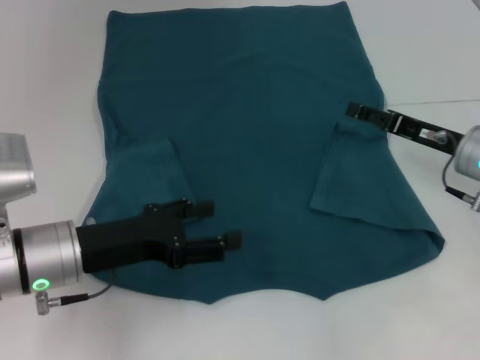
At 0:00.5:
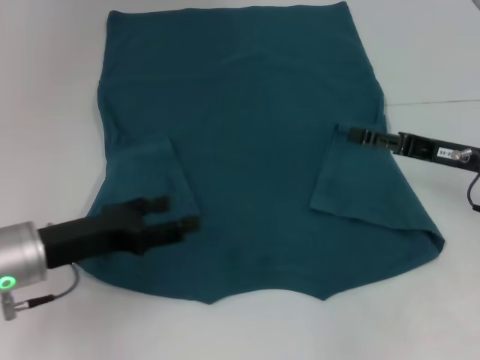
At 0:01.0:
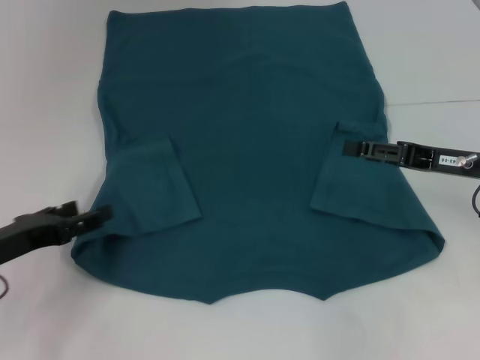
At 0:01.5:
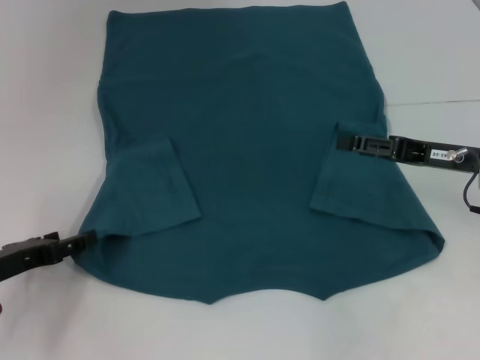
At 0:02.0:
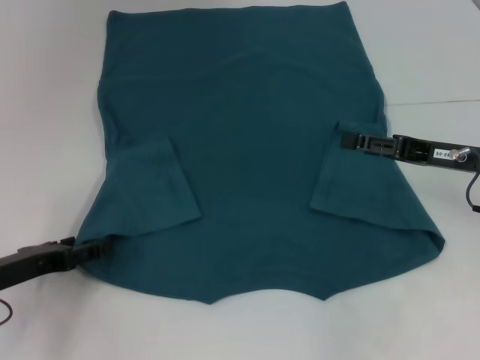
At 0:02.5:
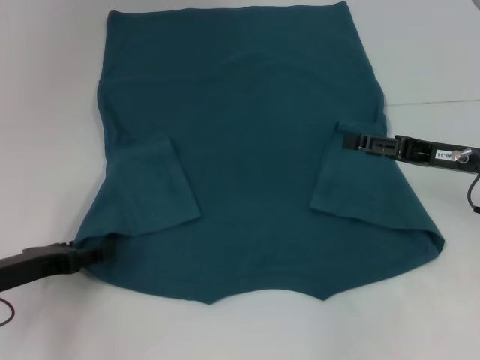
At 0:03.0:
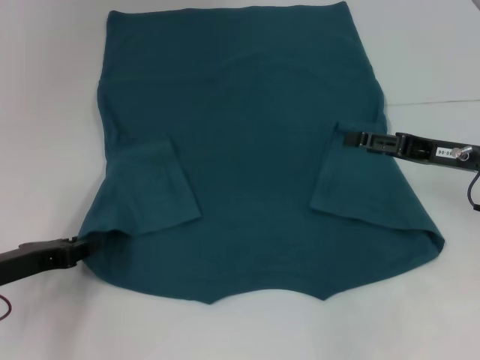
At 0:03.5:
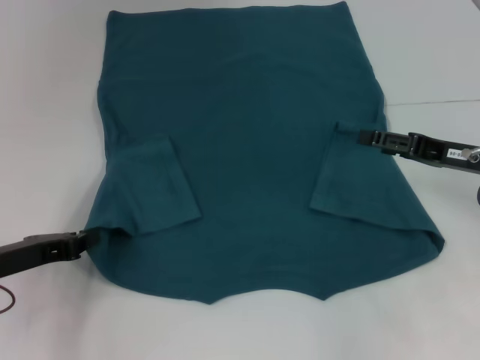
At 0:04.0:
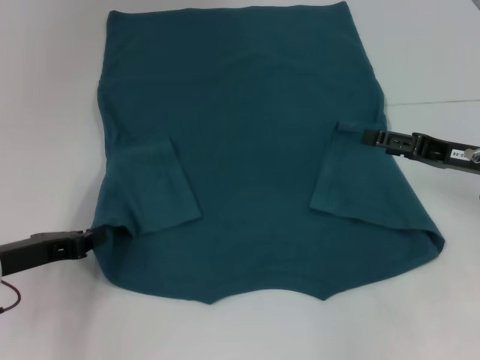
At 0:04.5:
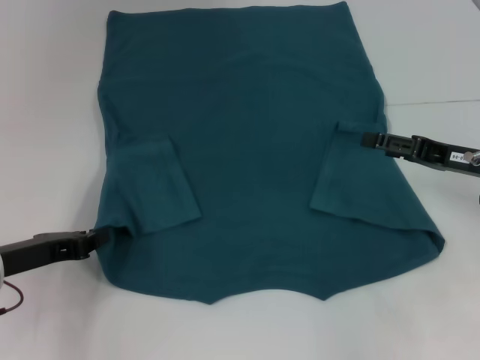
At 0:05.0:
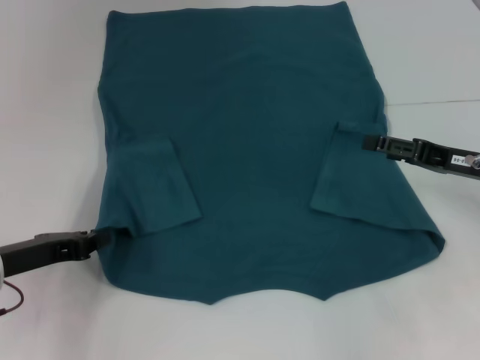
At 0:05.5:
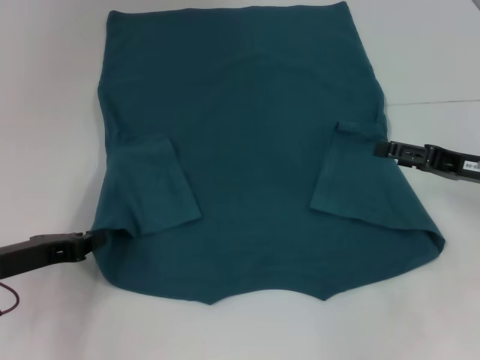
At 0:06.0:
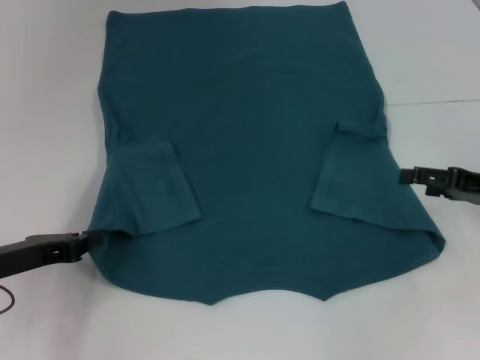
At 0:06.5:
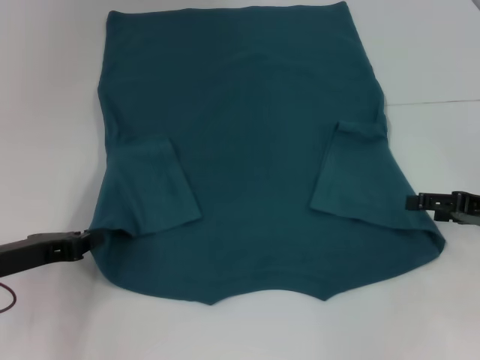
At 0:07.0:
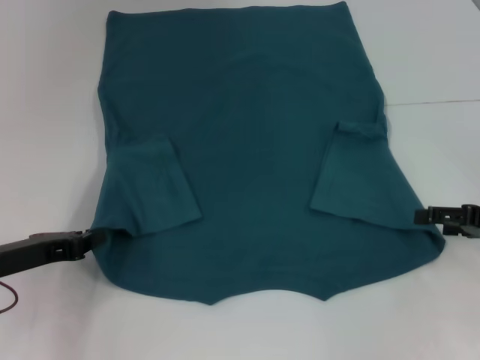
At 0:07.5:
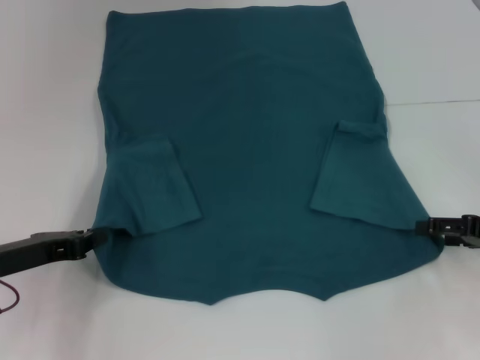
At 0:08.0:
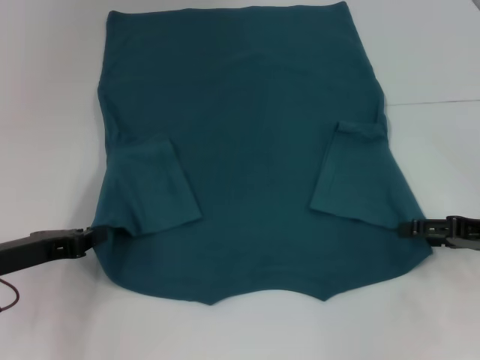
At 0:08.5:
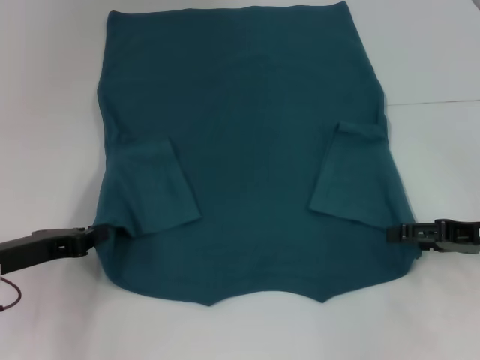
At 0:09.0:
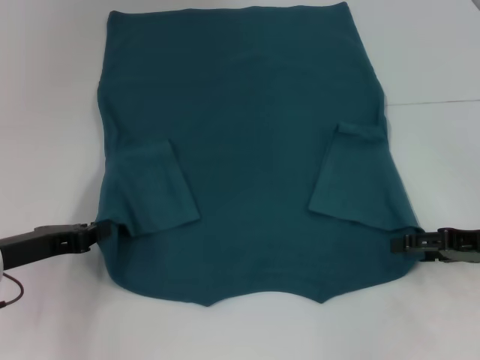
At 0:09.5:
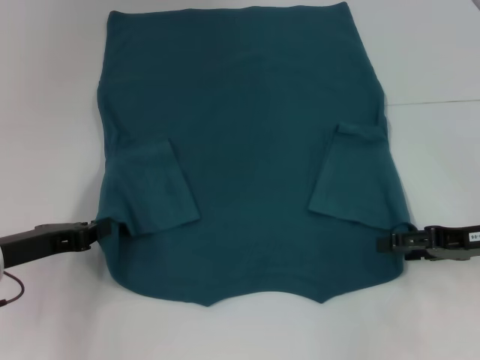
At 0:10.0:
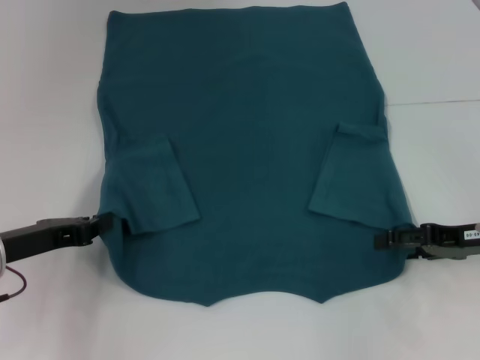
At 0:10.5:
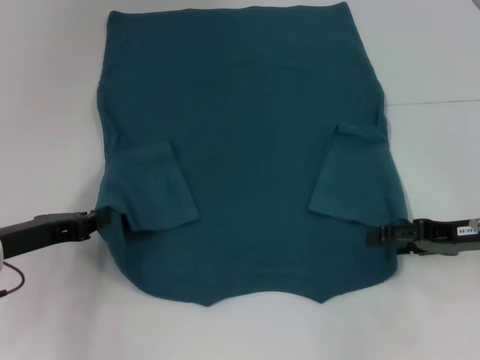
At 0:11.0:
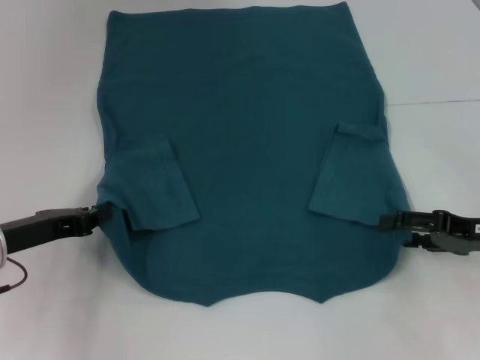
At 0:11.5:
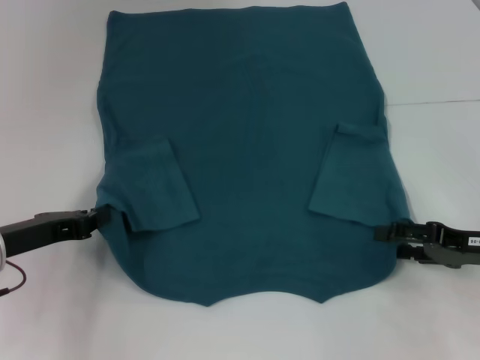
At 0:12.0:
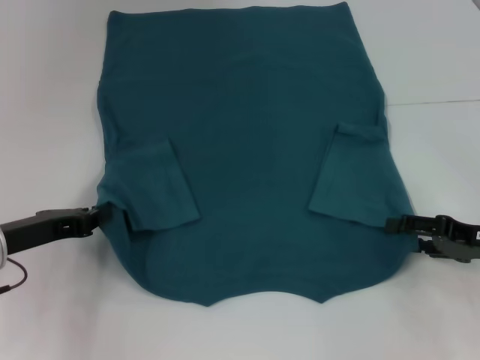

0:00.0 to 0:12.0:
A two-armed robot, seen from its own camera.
Step, 0:00.5 to 0:03.0: Grab the bottom left corner with your left hand.
0:00.0 to 0:02.0: The left gripper heads to the left and downward, covering about 10 cm.
0:02.0 to 0:04.0: The left gripper closes its fingers.
0:04.0 to 0:06.0: There are only small adjustments of the grippers.
0:06.0 to 0:12.0: There are only small adjustments of the grippers.

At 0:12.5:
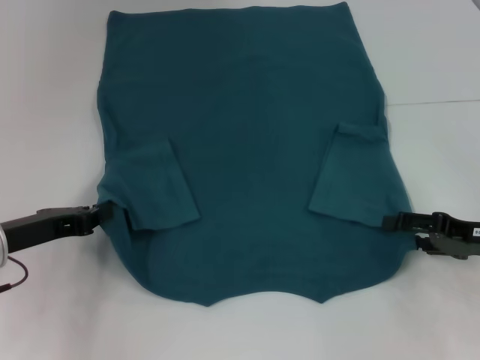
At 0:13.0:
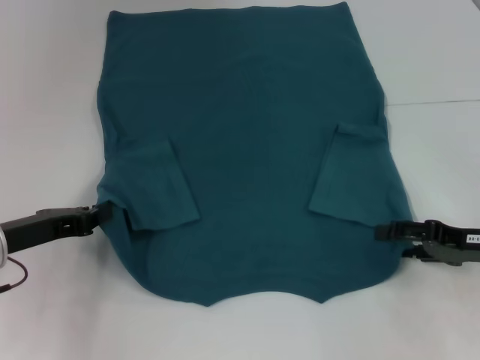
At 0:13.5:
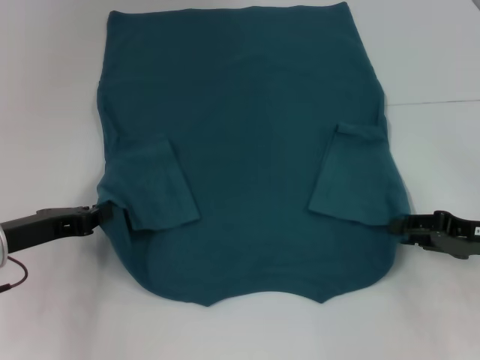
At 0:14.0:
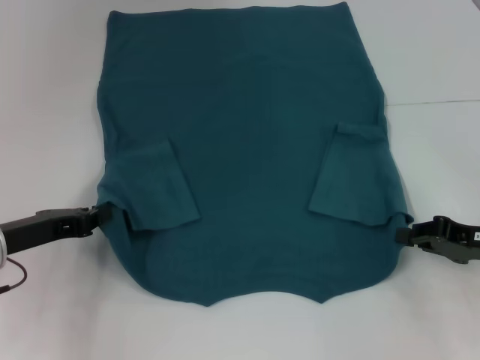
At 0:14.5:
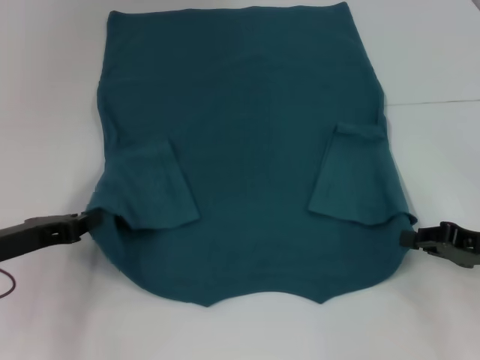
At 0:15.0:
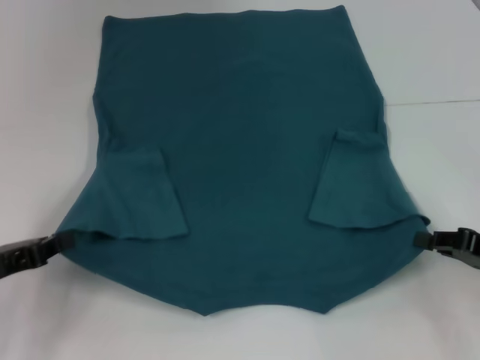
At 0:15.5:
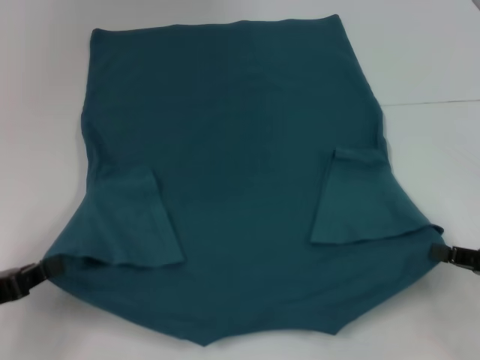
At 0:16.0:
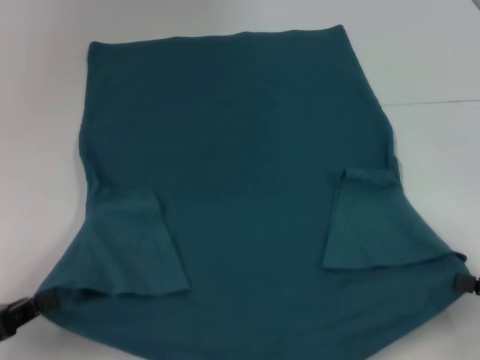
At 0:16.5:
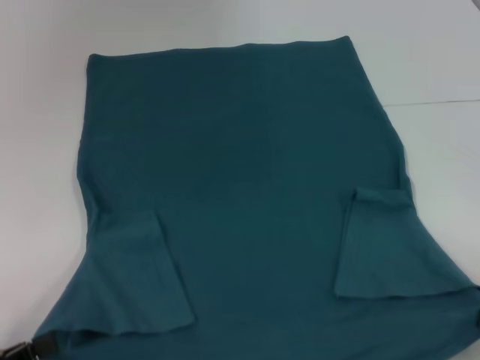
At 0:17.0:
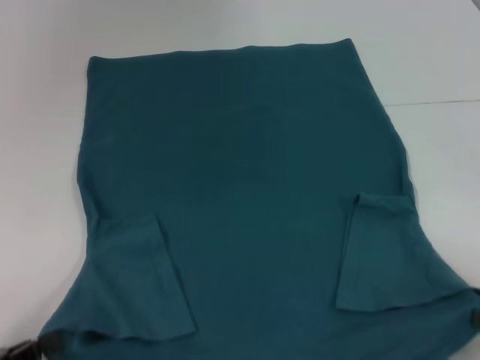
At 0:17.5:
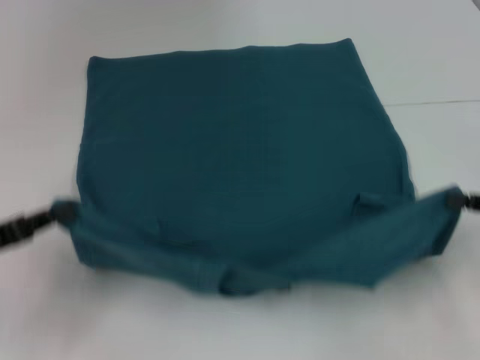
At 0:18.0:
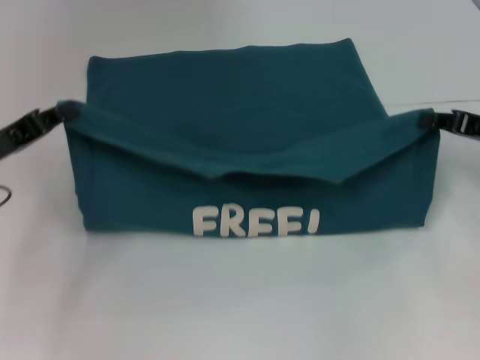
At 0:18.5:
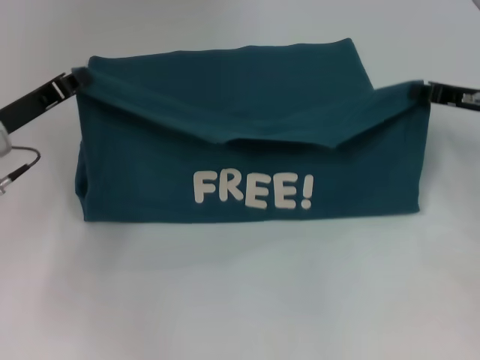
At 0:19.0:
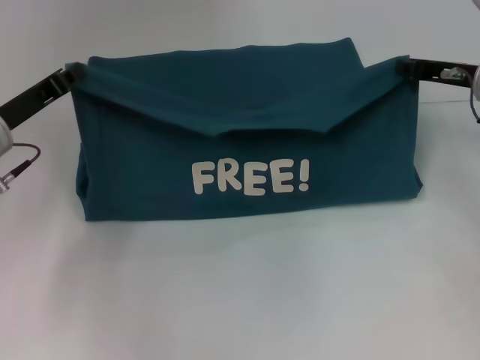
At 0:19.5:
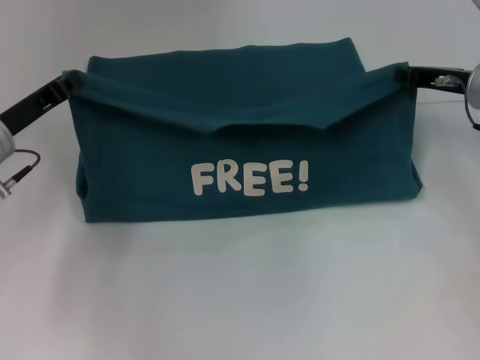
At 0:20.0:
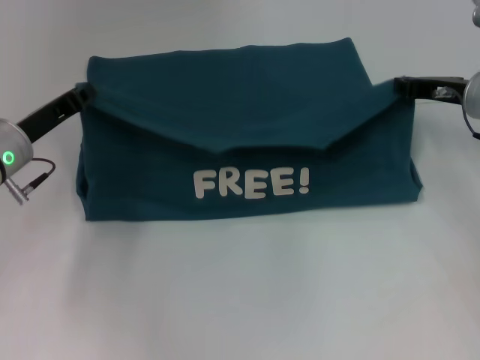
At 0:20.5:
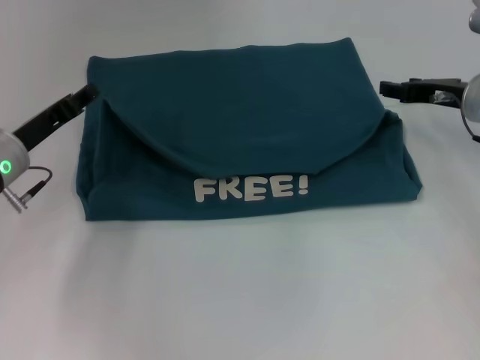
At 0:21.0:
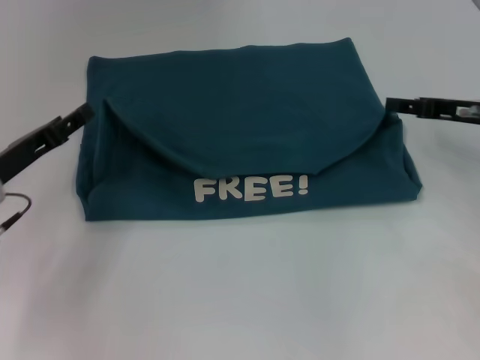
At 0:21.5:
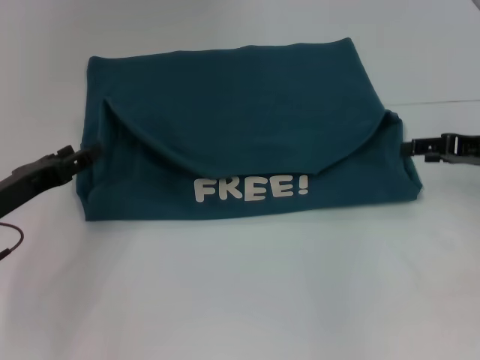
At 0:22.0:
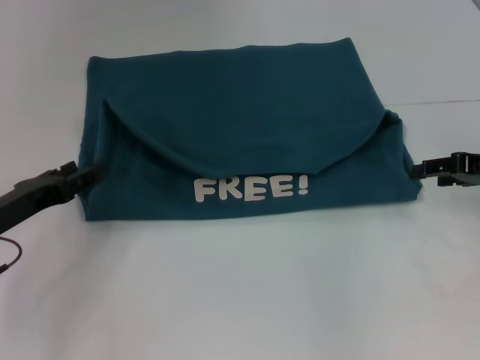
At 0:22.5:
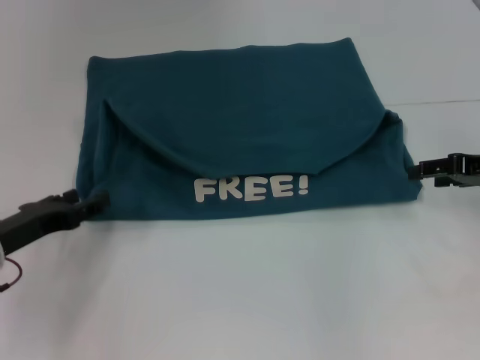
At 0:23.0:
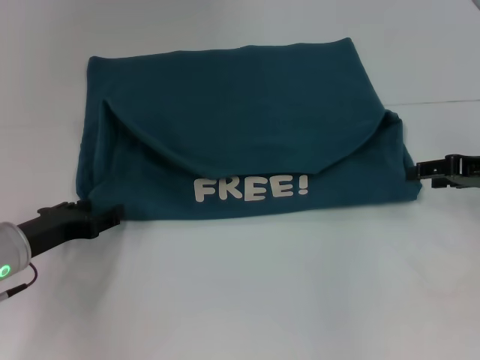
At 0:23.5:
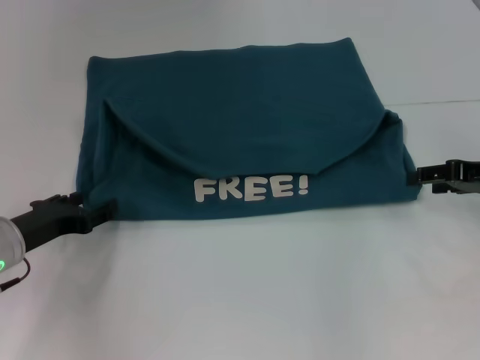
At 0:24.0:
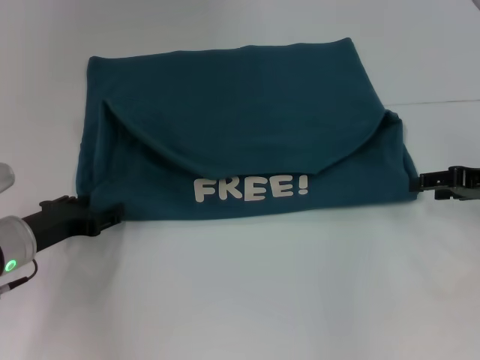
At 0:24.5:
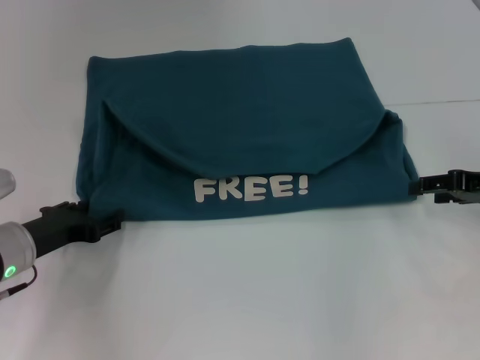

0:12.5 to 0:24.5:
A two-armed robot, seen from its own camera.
Step, 0:14.5 to 0:20.0: Fold the clothes to the left.
Step, 0:14.5 to 0:20.0: Fold the clothes to the right.
0:12.5 to 0:14.5: The right gripper closes.
0:14.5 to 0:16.5: The left gripper moves backward, roughly 15 cm. Meanwhile the right gripper moves backward and to the right, about 15 cm.
0:16.5 to 0:18.5: The grippers both shift forward by about 25 cm.
0:18.5 to 0:20.5: The right gripper opens its fingers; the left gripper opens up.
0:20.5 to 0:22.5: The left gripper shifts approximately 5 cm backward; the right gripper goes roughly 10 cm backward and to the right.
0:22.5 to 0:24.5: There are only small adjustments of the grippers.

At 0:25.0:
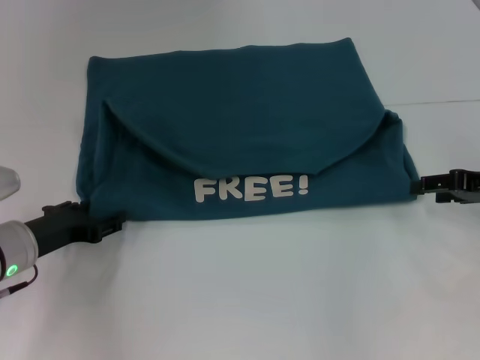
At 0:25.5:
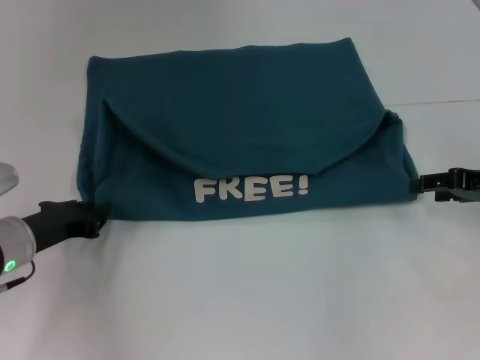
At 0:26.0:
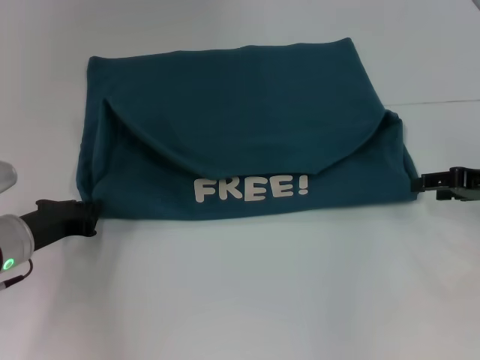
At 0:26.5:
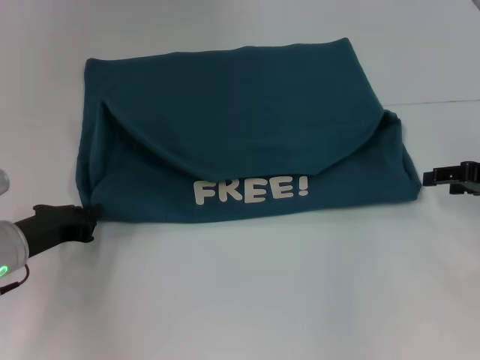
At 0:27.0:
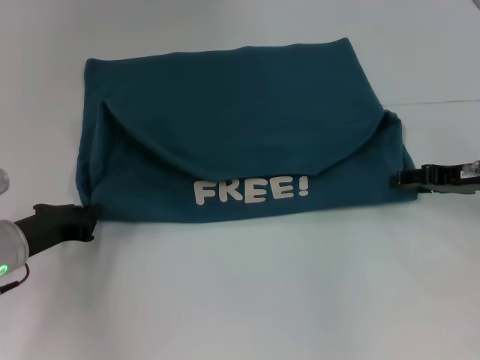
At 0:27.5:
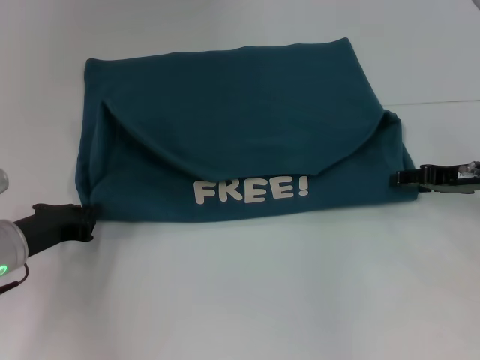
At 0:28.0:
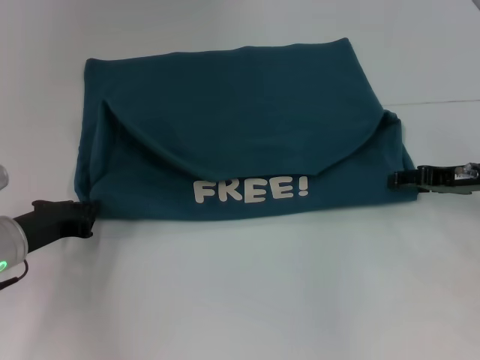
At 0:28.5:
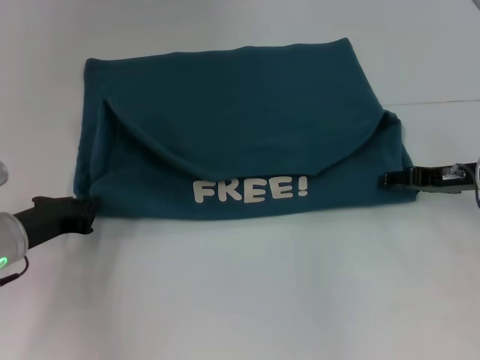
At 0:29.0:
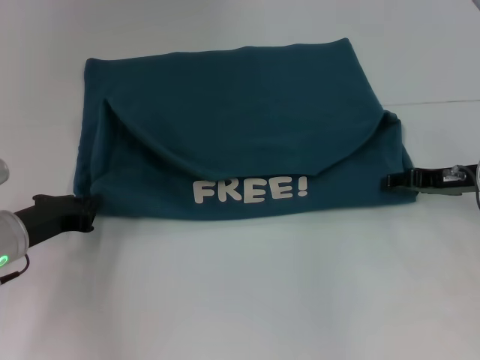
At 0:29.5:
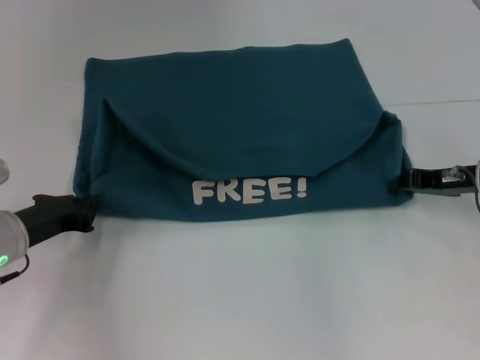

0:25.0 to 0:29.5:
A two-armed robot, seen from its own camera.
0:25.0 to 0:27.0: The left gripper closes.
0:27.0 to 0:29.5: There are only small adjustments of the grippers.
